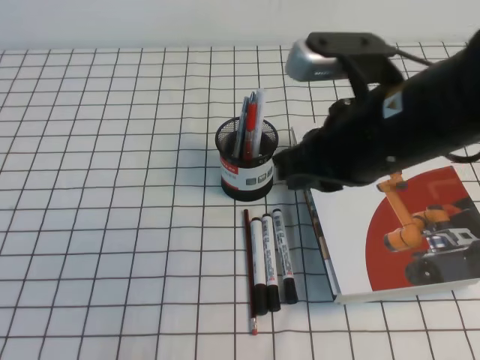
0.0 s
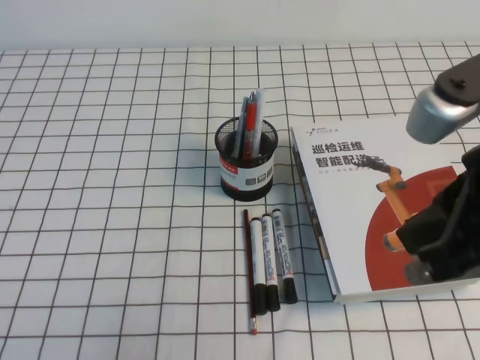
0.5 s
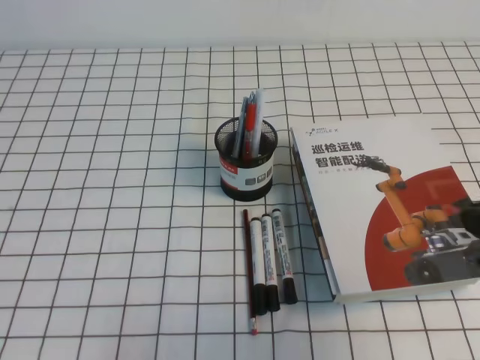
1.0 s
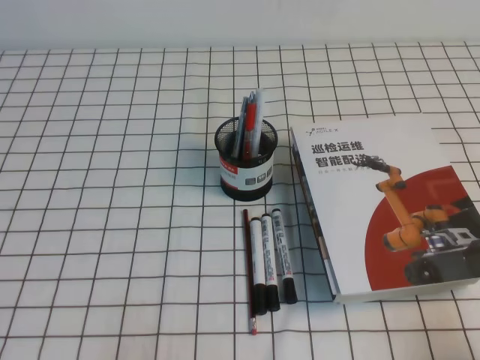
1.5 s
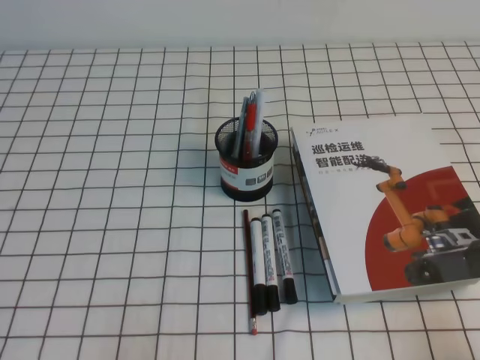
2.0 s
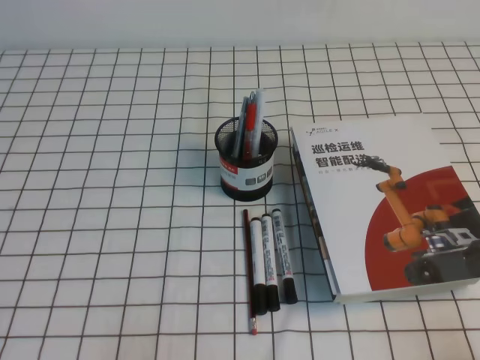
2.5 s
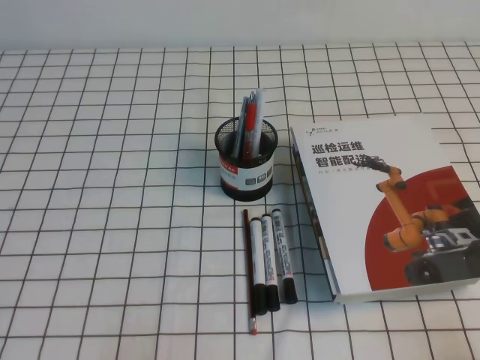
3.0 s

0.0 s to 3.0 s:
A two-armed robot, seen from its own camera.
Step, 0.0 to 3.0 s: Pick up the pen from the pen holder.
0.0 to 1.5 s: The right gripper heads to the right, backward and downward, covering roughly 30 cm.
